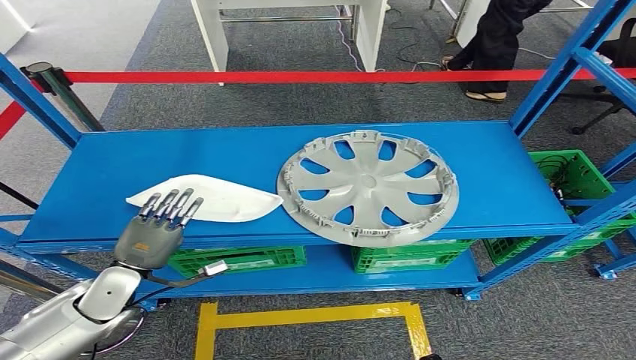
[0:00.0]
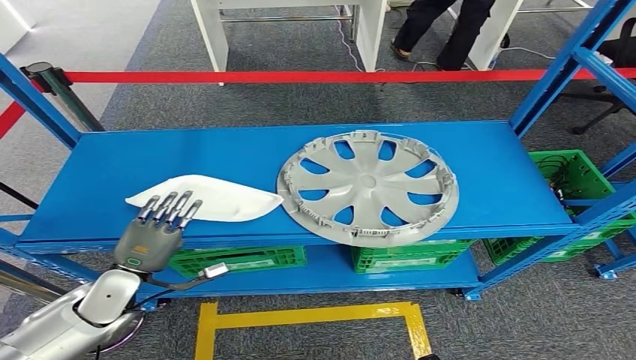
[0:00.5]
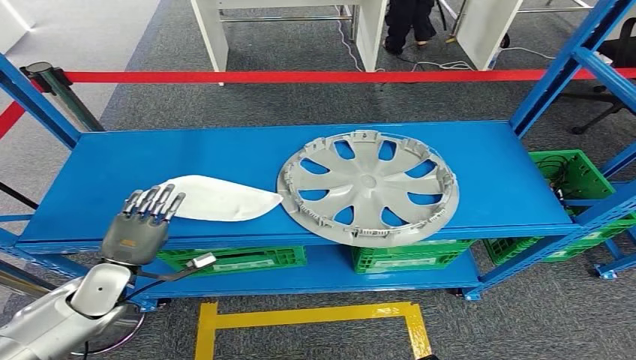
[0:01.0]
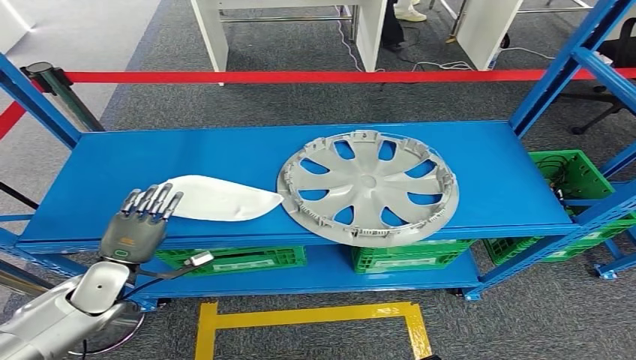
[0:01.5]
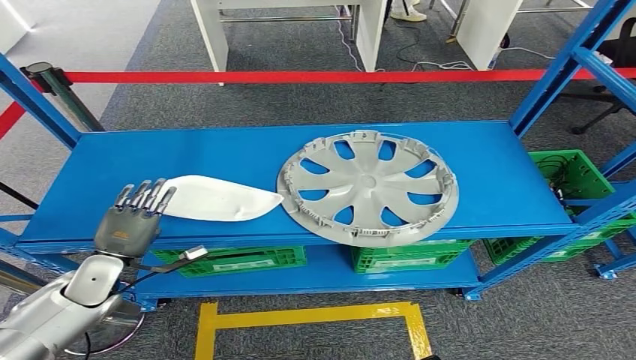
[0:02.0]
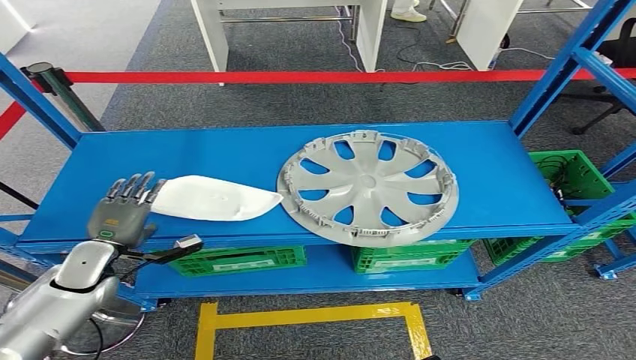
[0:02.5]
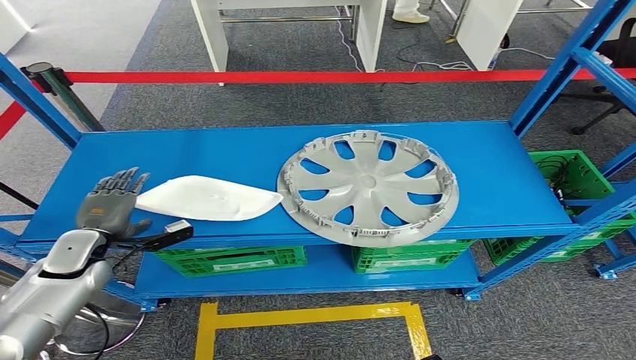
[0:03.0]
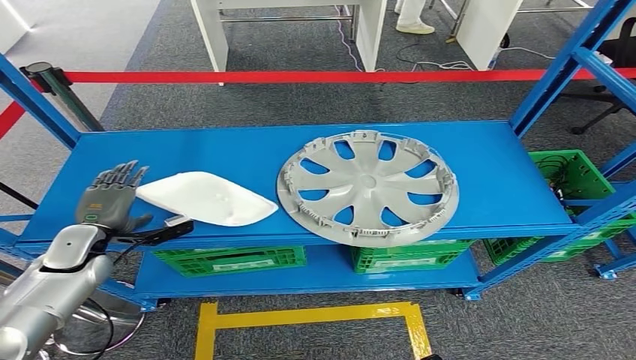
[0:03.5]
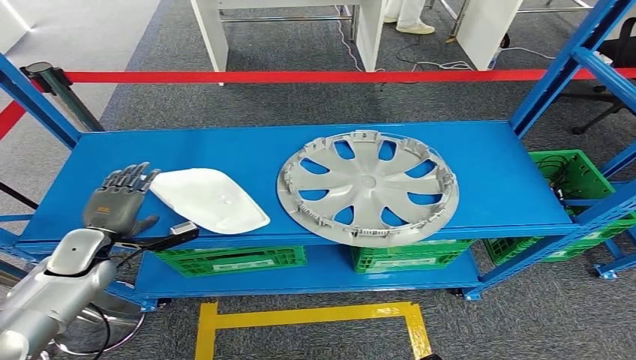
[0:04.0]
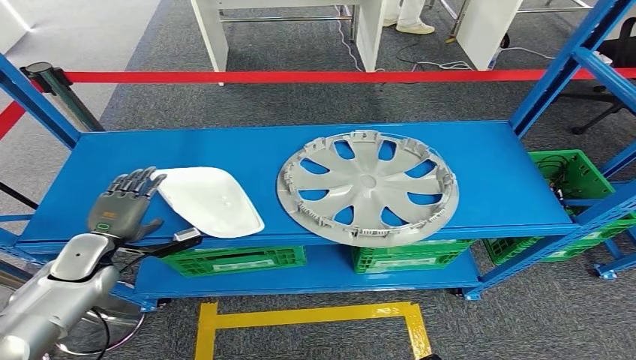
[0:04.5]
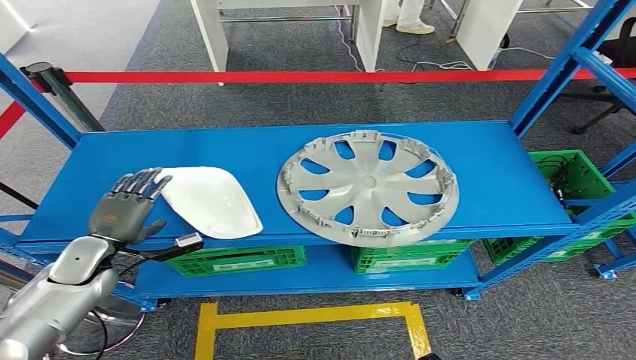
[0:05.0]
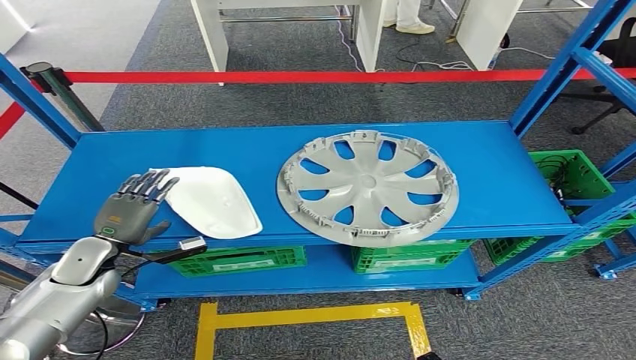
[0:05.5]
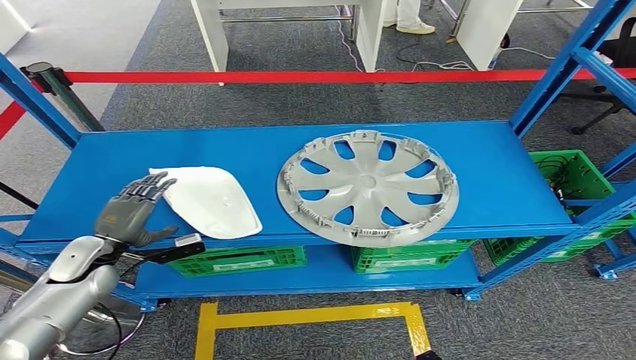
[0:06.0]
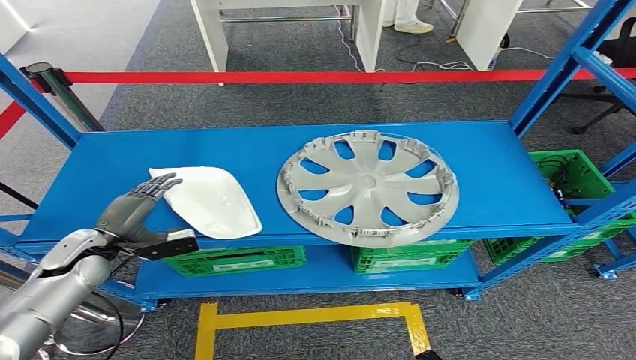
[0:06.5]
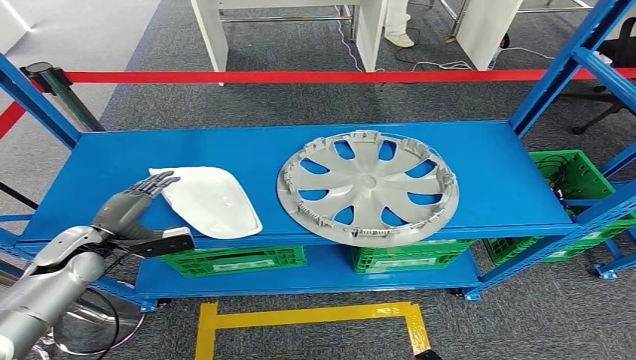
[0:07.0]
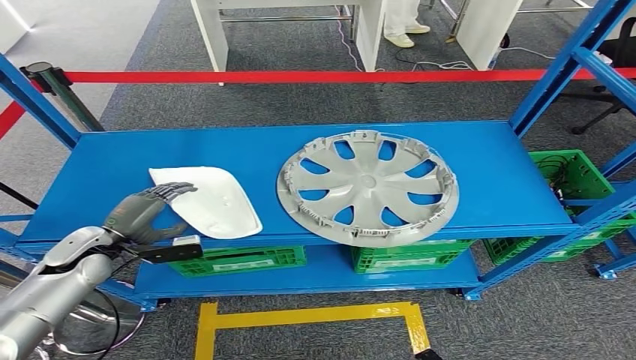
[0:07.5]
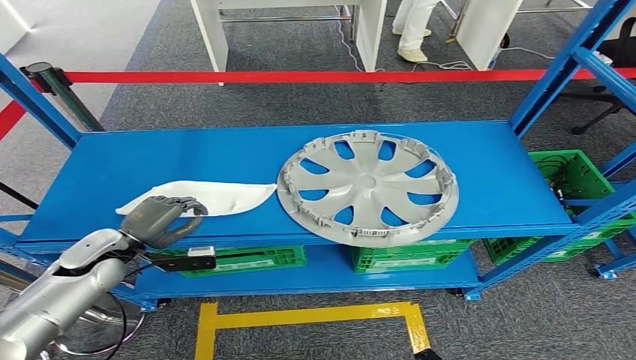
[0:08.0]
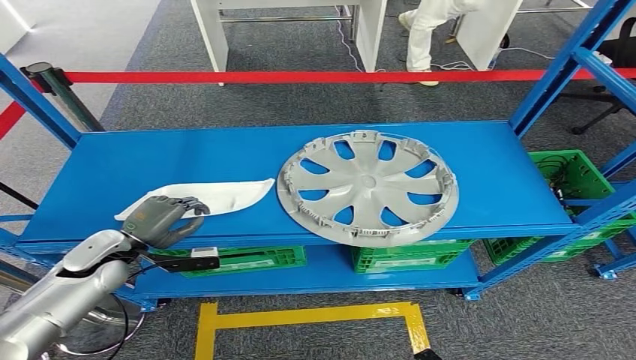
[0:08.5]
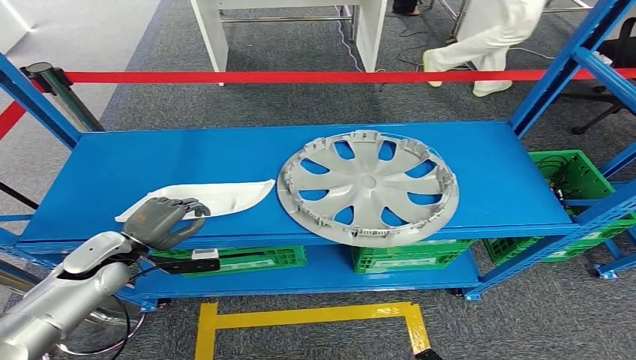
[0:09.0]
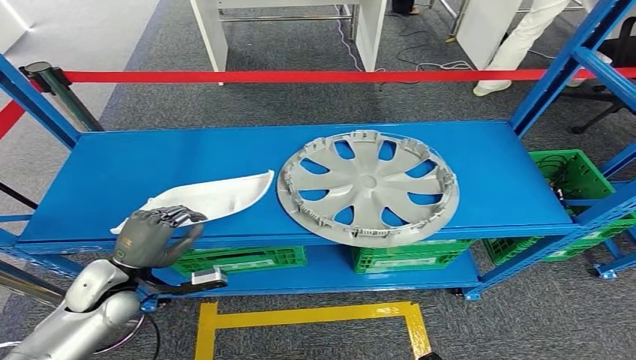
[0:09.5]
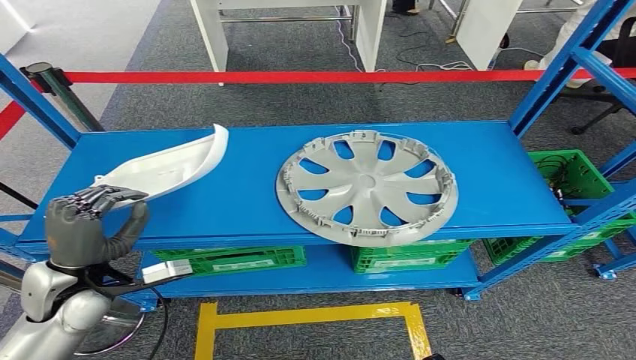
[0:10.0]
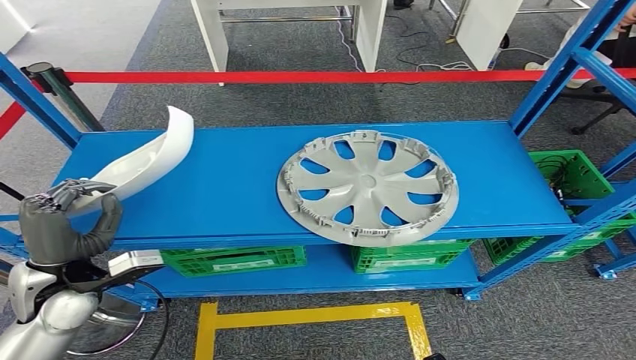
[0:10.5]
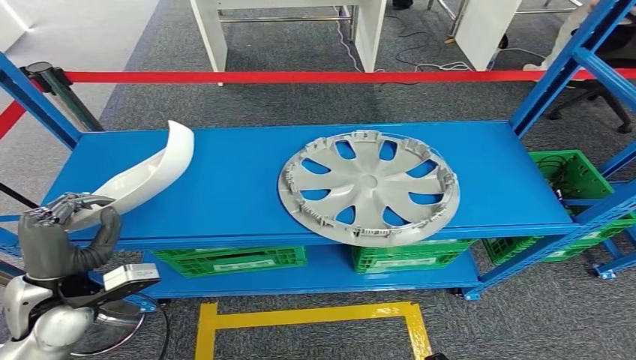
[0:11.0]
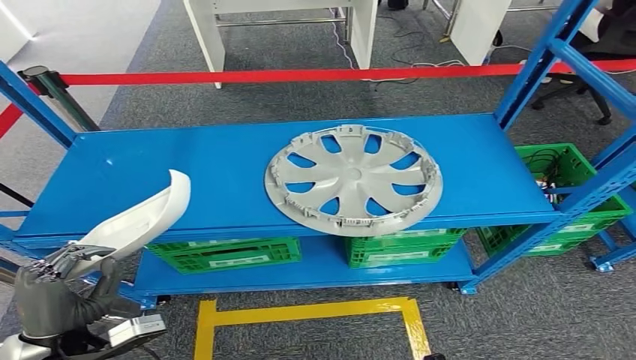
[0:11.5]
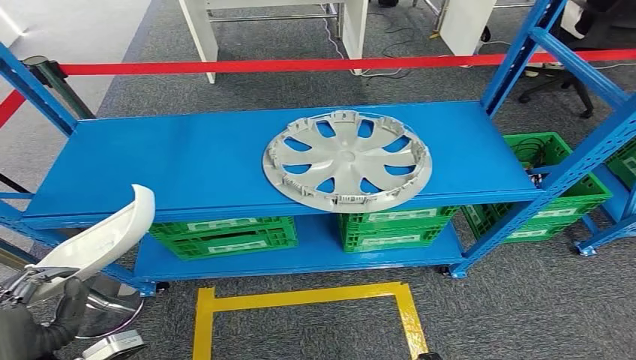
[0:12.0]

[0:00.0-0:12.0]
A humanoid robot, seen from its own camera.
0:00.0 to 0:02.0: The hands stay close to where they were, moving slightly.
0:02.0 to 0:04.0: The left hand changes place by about 5 cm.
0:04.0 to 0:06.0: The hands move only a little.
0:06.0 to 0:08.0: The hands move only a little.
0:08.0 to 0:10.0: The left hand goes some 10 cm backward and upward.

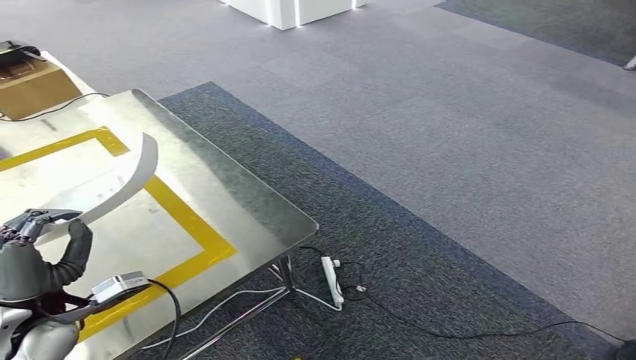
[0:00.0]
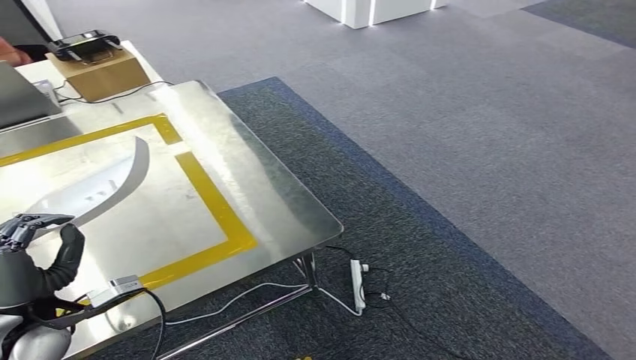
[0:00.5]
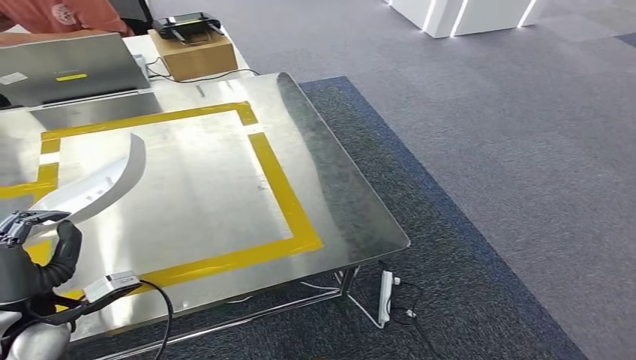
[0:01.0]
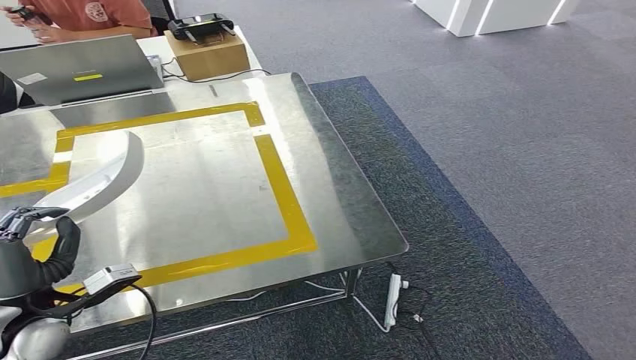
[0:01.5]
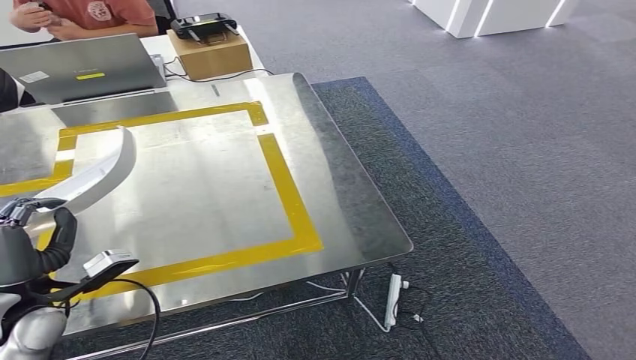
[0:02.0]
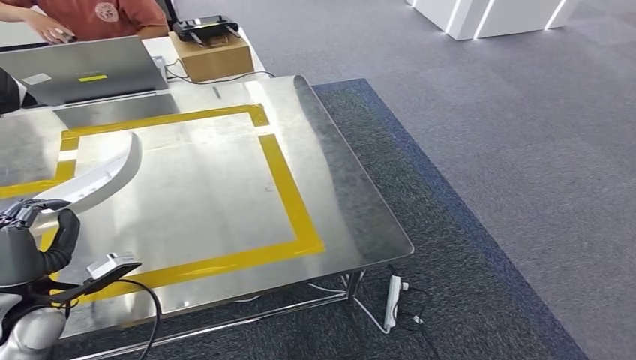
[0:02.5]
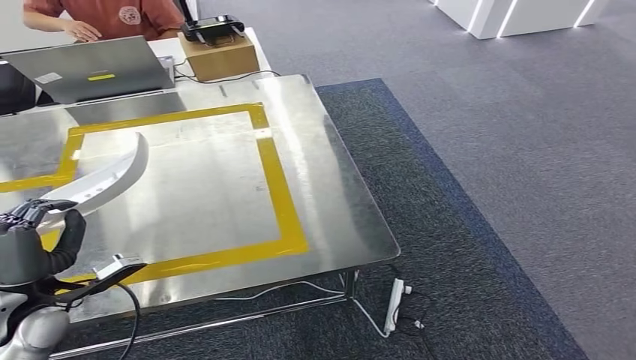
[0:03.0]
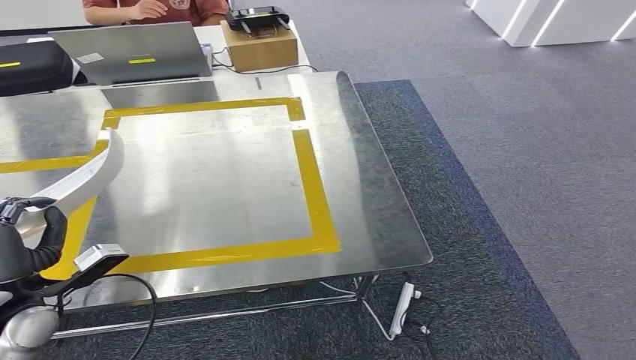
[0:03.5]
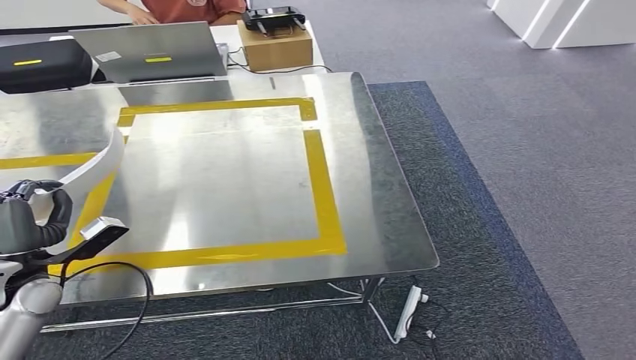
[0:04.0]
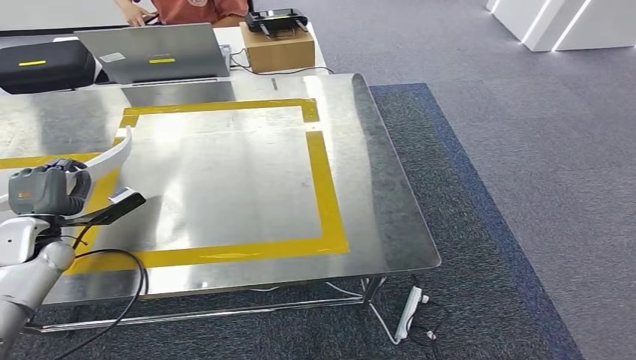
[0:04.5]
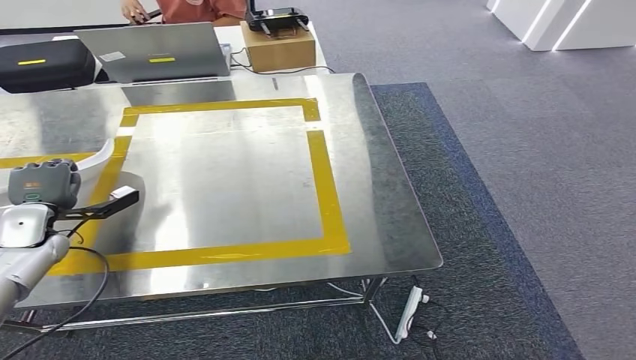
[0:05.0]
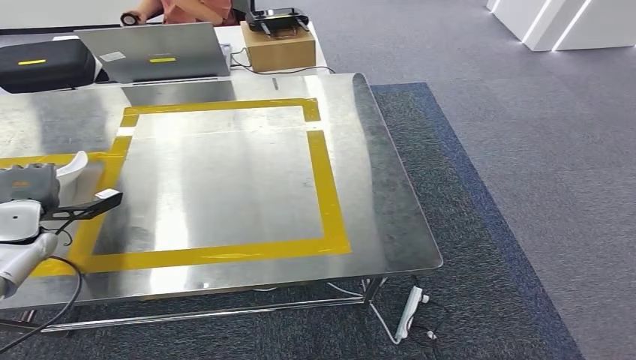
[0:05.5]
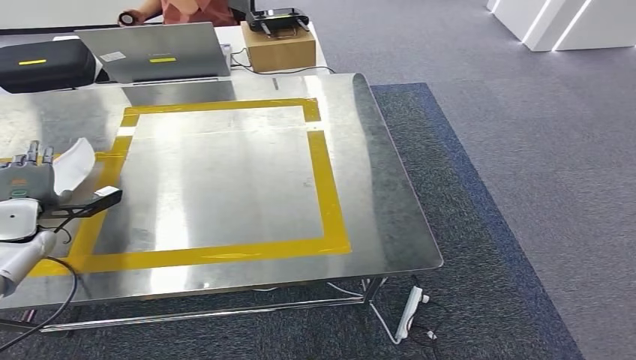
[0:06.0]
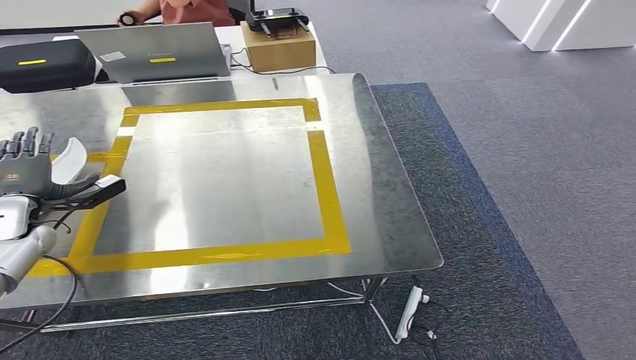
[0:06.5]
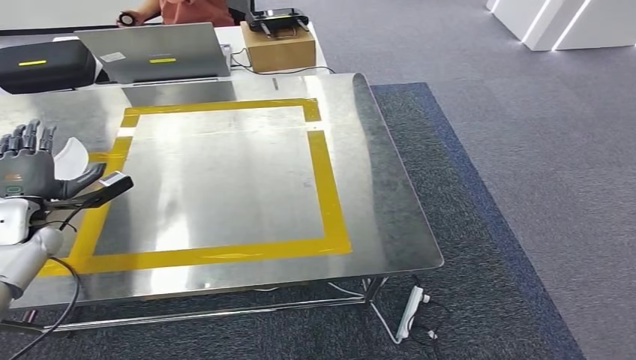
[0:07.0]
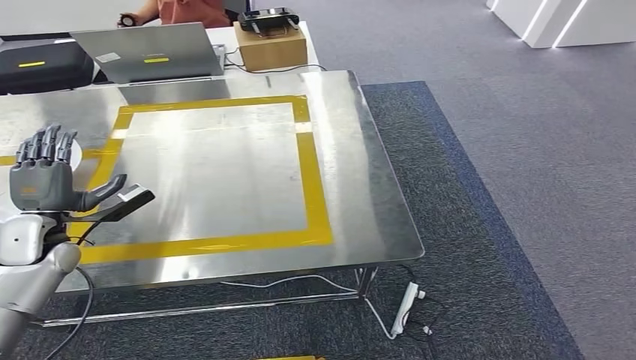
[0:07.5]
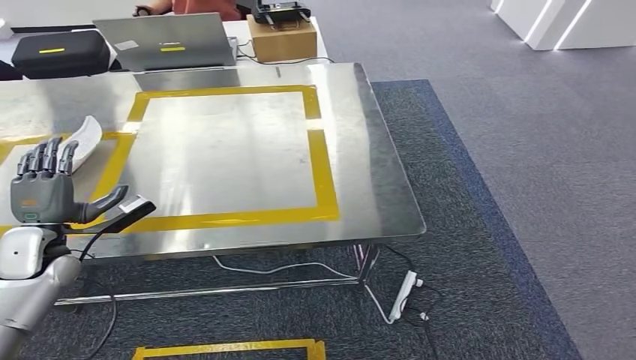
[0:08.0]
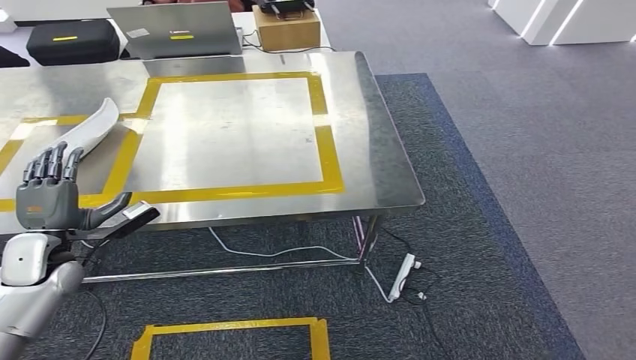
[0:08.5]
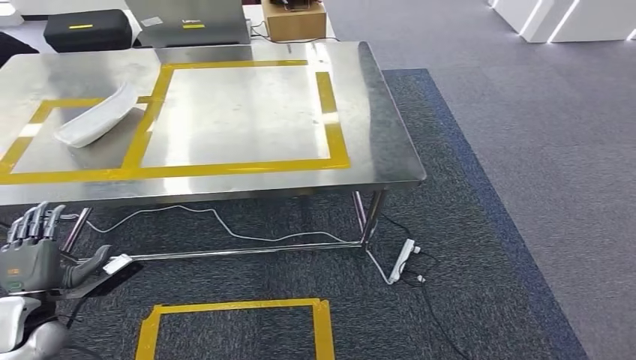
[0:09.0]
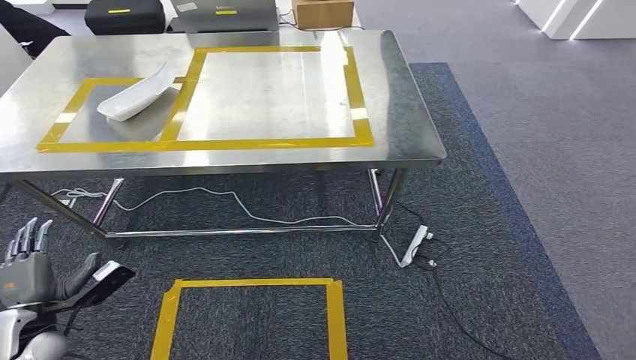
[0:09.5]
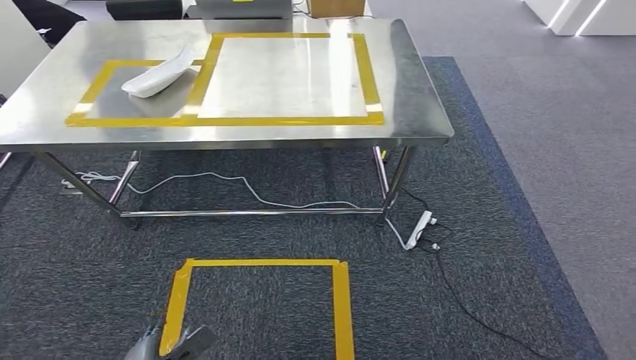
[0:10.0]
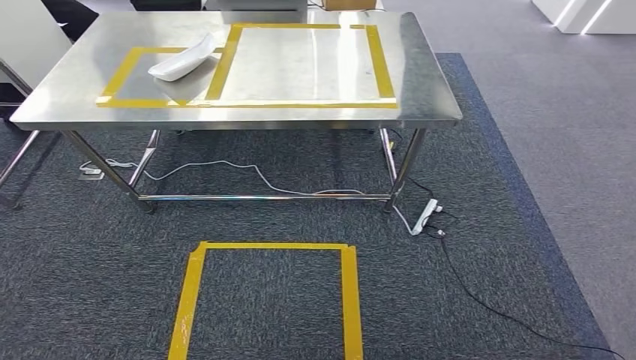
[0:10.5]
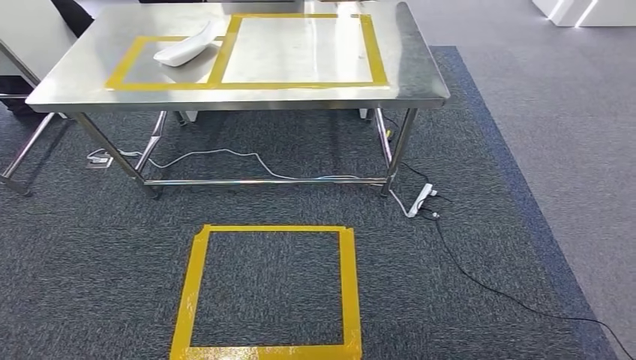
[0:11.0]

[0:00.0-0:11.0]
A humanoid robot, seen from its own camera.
Step, 0:00.0 to 0:02.0: Move the small component to the workbench.
Step, 0:02.5 to 0:09.0: Insert the small component into the corresponding slot on the workbench.
